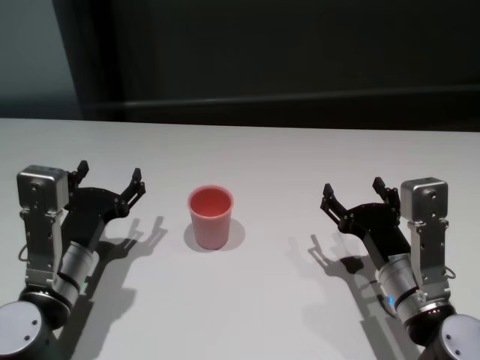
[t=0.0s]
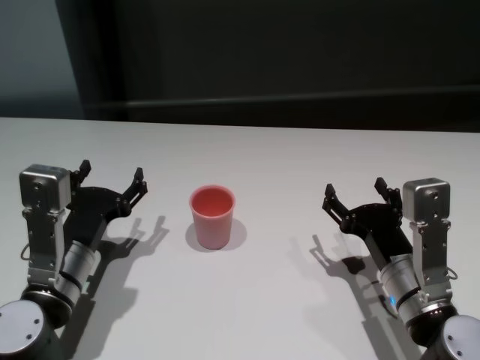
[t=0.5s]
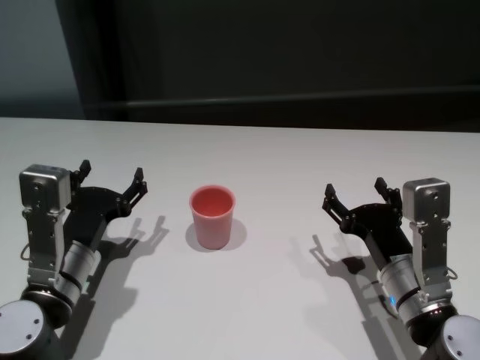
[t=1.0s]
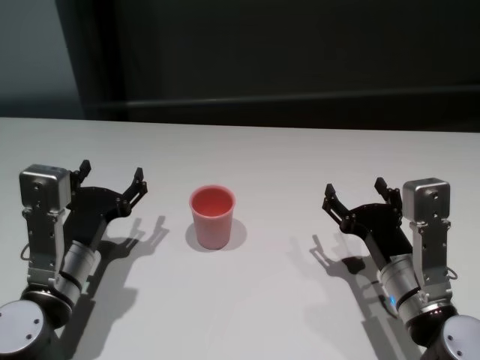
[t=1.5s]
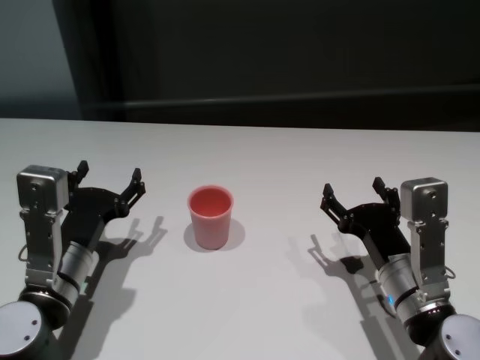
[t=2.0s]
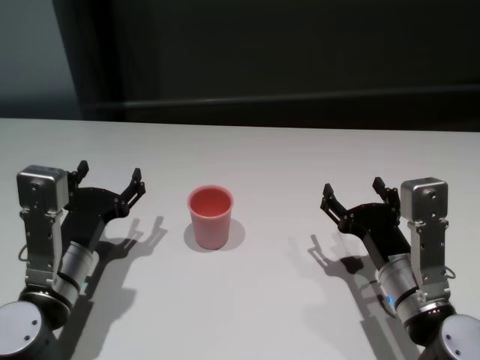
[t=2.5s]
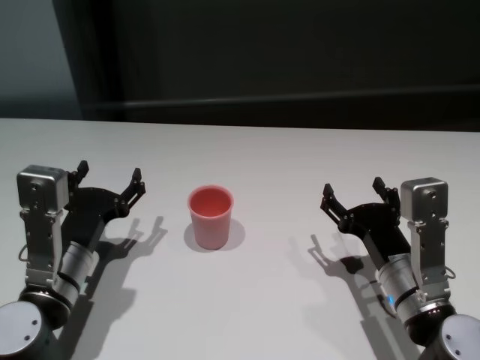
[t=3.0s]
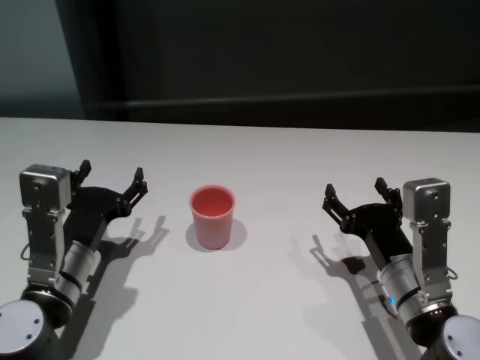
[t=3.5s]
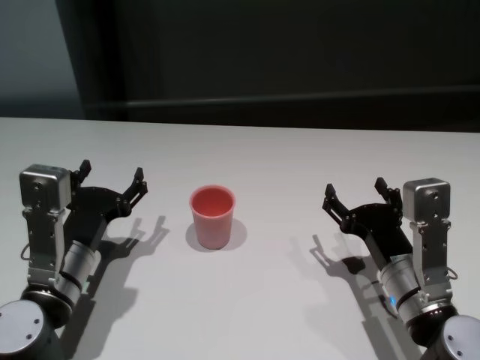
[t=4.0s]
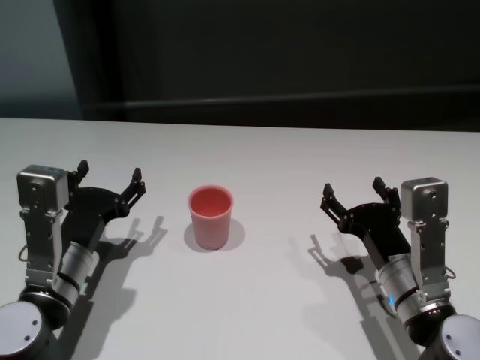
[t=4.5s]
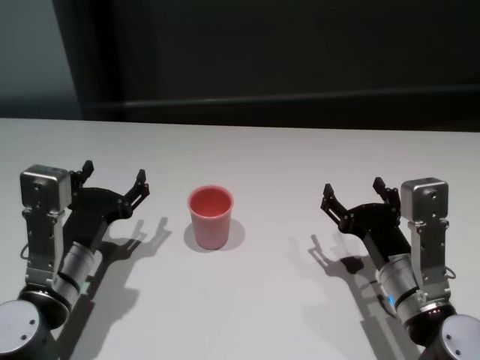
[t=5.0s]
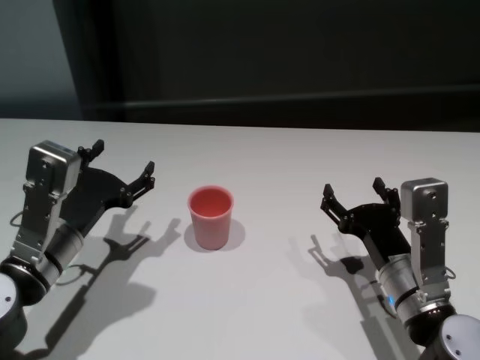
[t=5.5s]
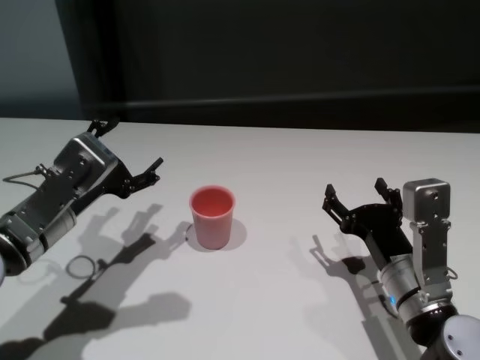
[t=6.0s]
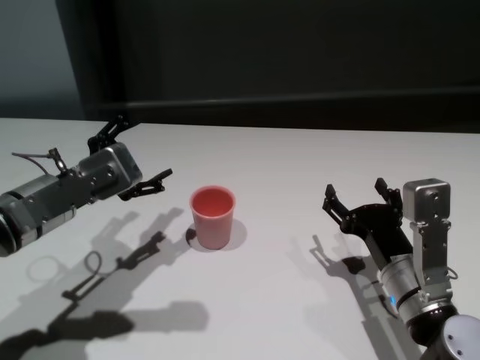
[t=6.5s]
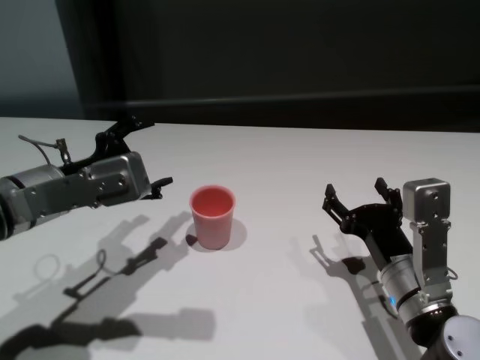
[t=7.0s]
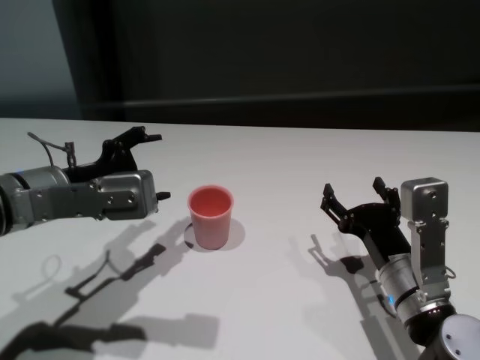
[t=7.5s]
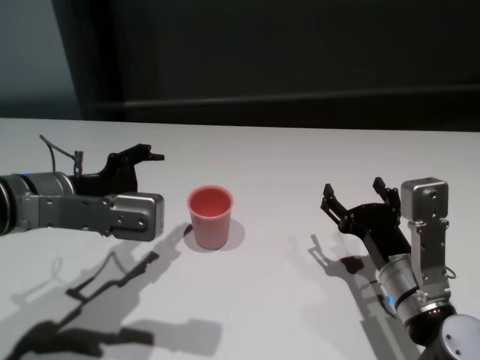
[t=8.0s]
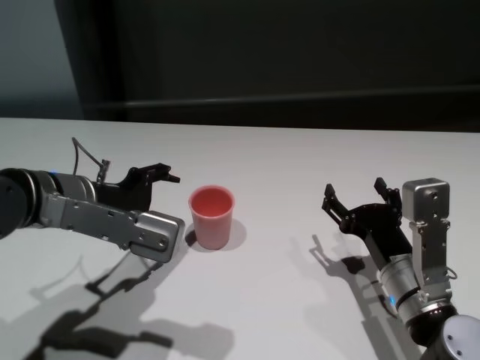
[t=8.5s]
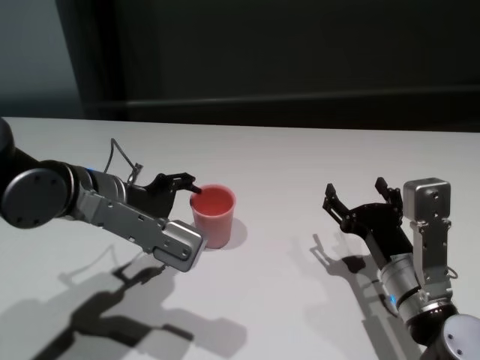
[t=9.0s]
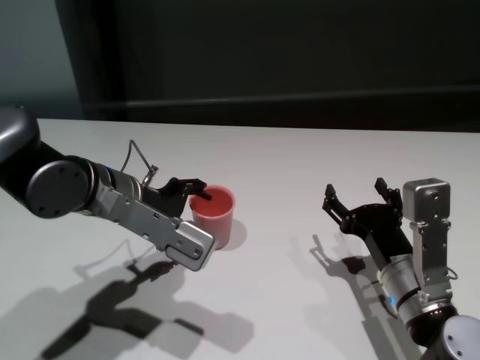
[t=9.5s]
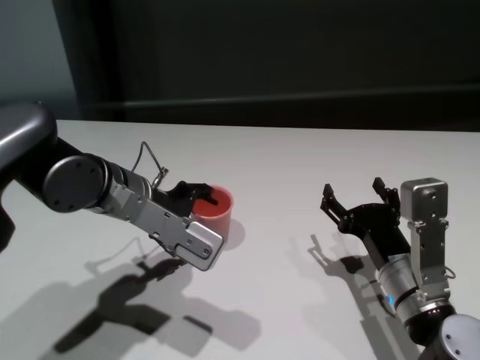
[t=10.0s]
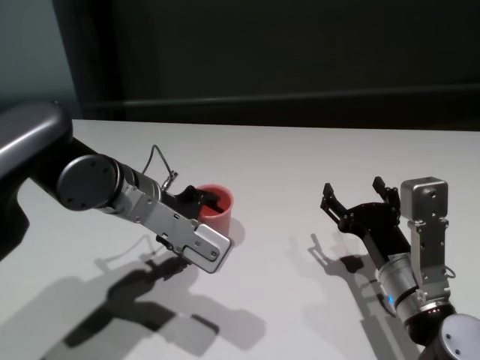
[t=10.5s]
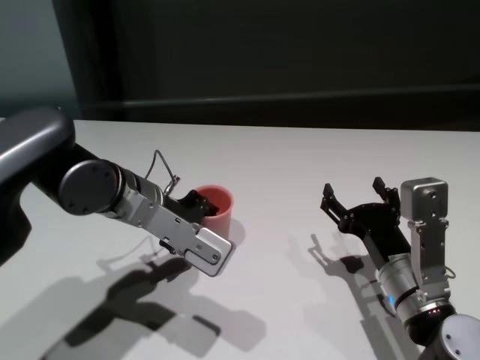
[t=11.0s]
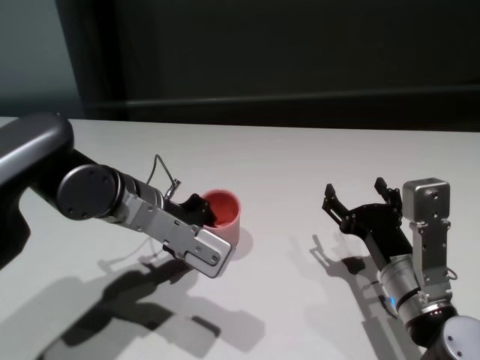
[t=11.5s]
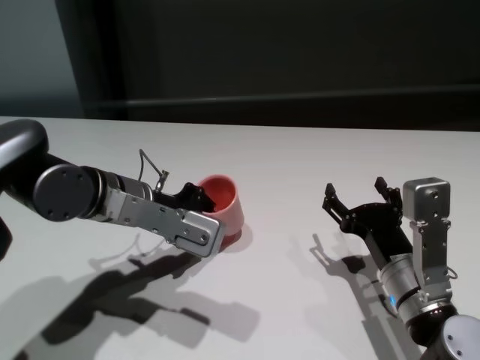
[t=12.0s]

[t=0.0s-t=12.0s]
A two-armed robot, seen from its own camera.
Task of the whole recording: On the white table pick up the cup with one hand and transfer it to the other hand before turning it over.
Step, t=0.0s to t=11.0s: Grasp the cup with left gripper.

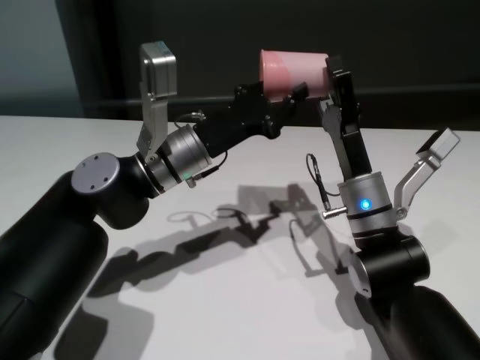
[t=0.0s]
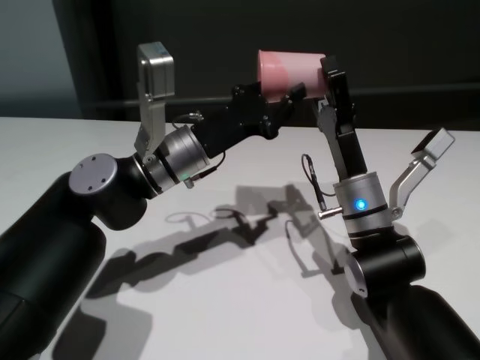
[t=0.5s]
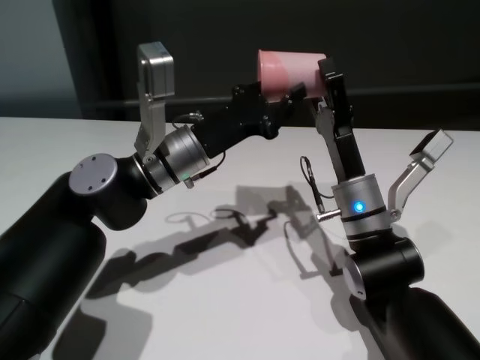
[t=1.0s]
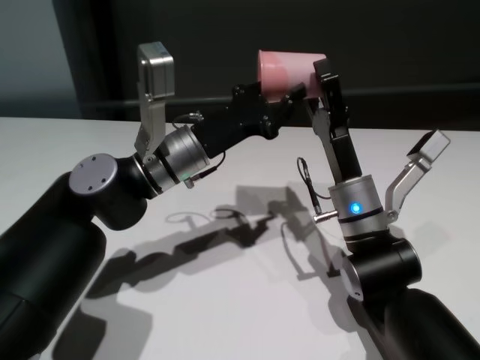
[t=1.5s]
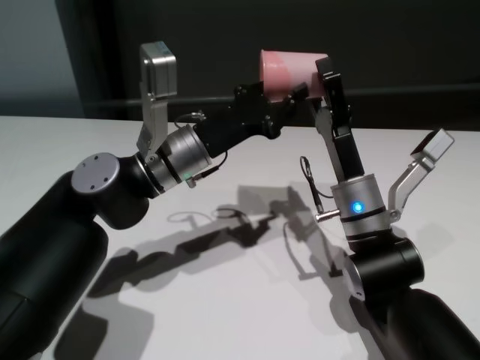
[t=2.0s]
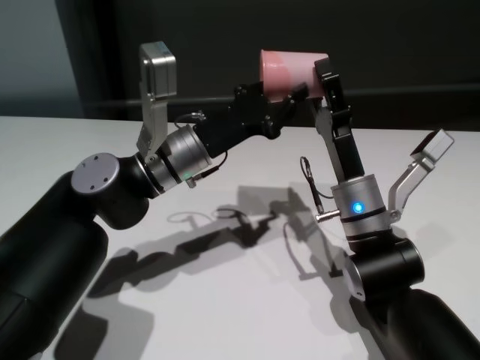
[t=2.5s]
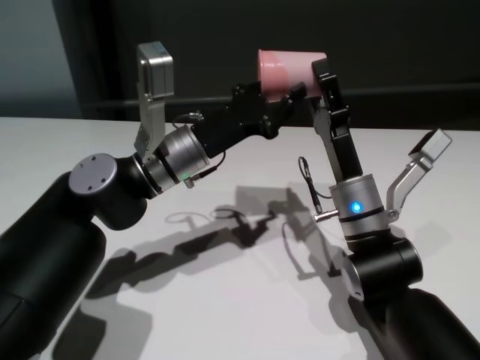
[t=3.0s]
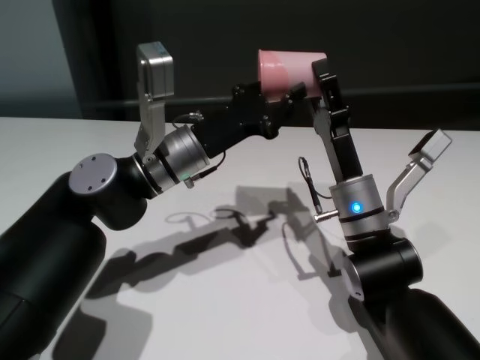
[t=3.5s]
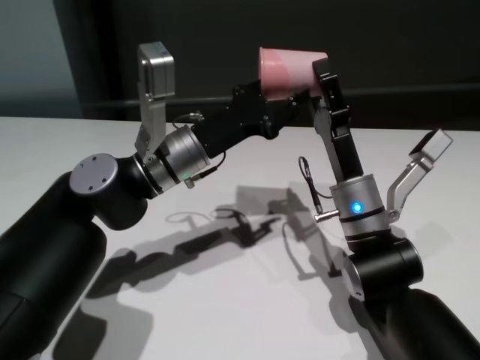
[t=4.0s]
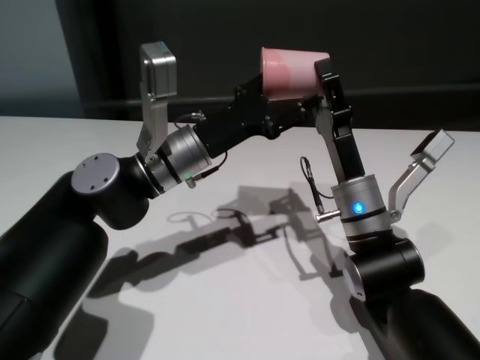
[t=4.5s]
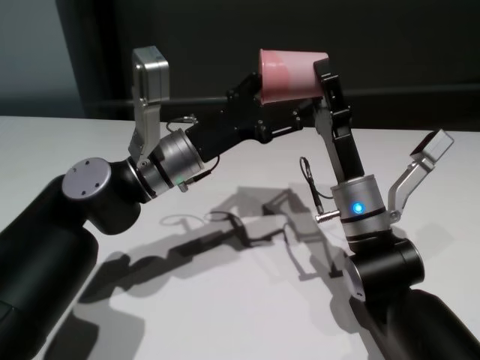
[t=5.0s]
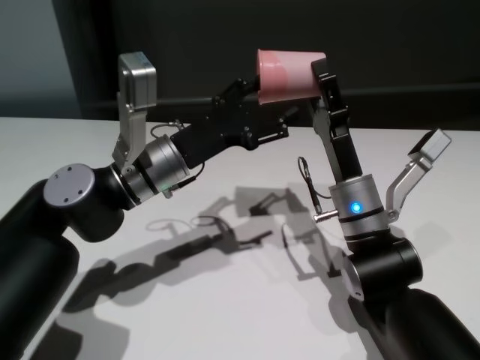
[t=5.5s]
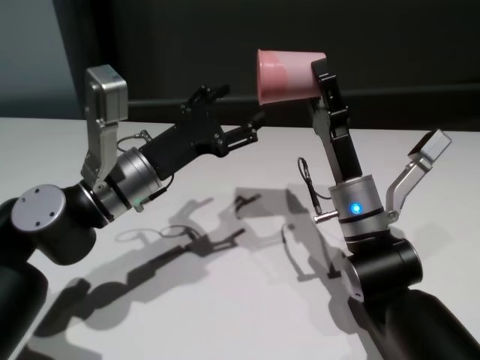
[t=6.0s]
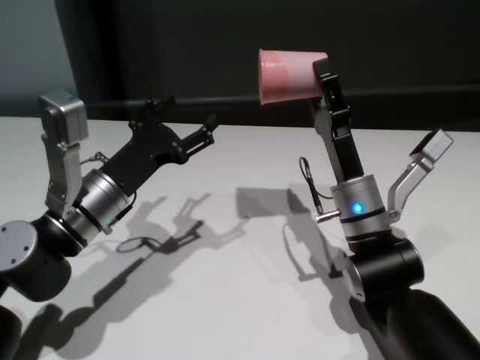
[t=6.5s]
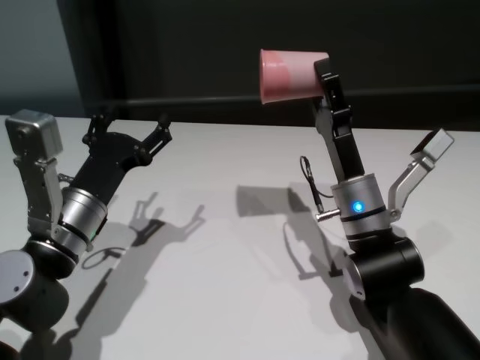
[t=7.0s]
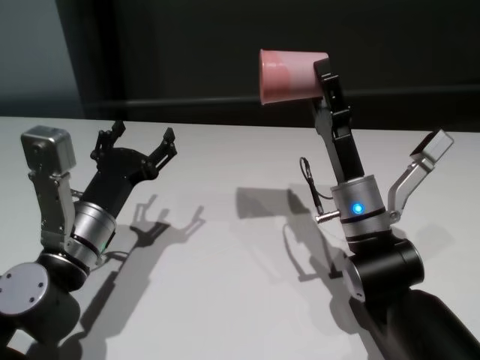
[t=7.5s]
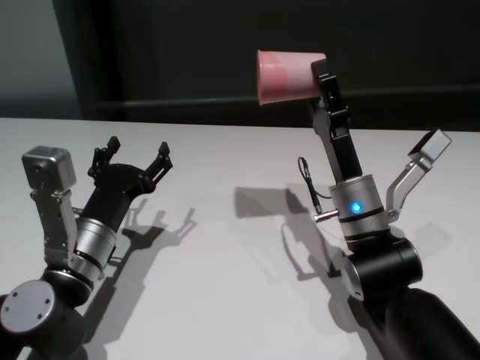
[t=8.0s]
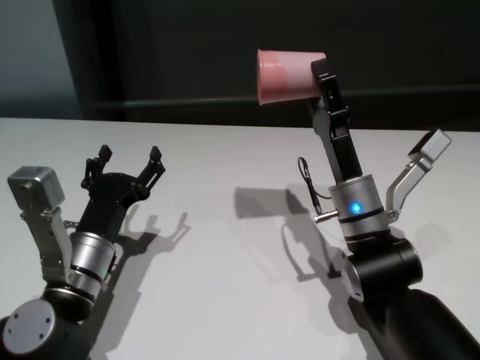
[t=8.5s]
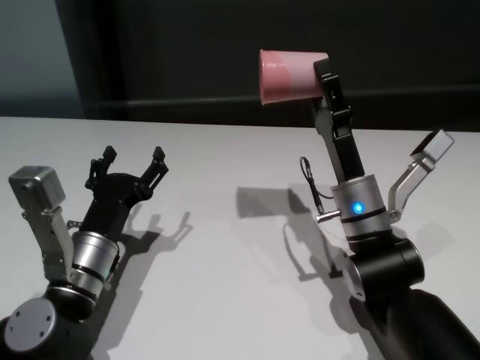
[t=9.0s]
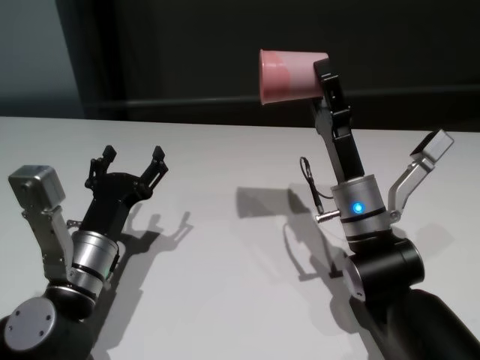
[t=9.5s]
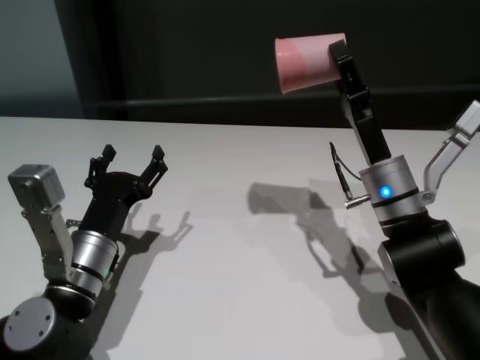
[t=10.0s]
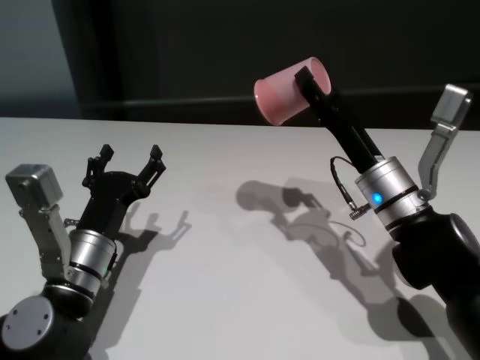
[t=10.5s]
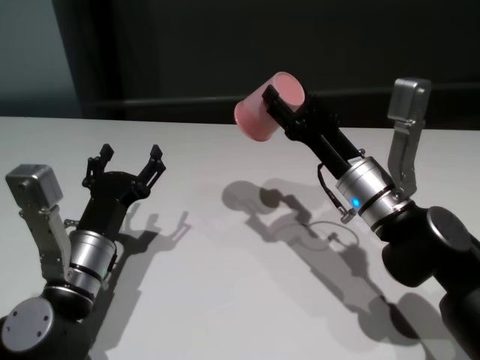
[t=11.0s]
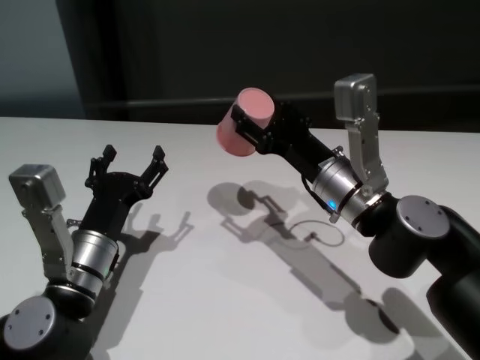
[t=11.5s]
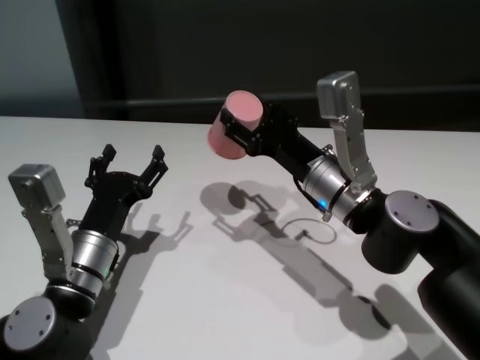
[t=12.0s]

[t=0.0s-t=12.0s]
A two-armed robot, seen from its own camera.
Task of the whole recording: On the white table pick up the cup with one hand and transfer it to the other hand before turning it over.
Step, t=0.0s to t=6.0s: Pass the cup to the right gripper.
